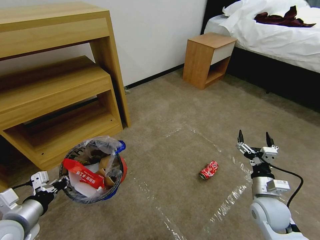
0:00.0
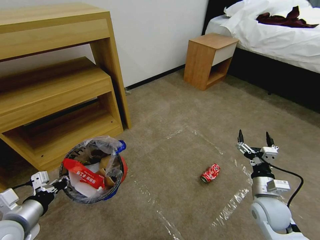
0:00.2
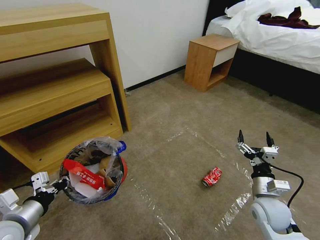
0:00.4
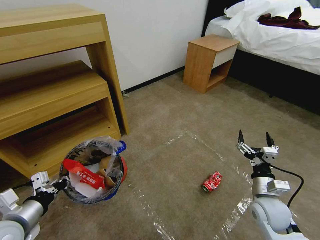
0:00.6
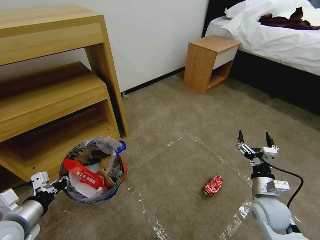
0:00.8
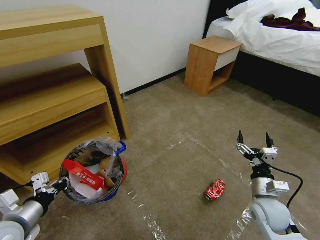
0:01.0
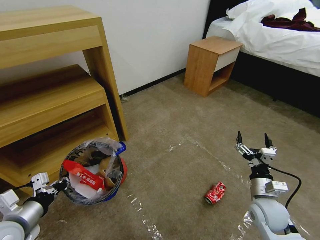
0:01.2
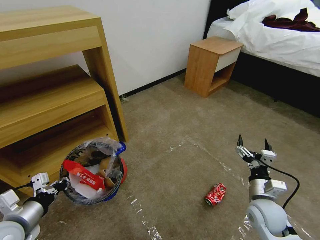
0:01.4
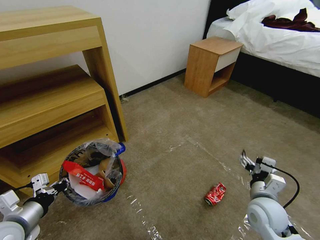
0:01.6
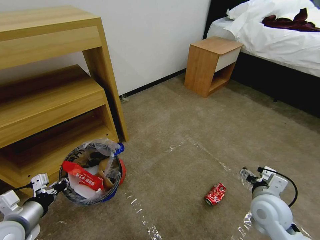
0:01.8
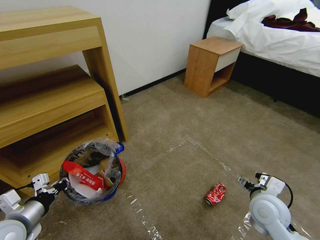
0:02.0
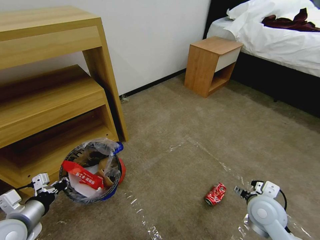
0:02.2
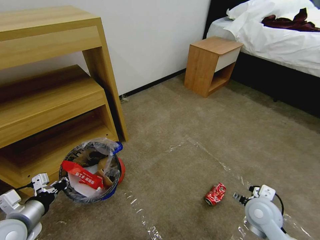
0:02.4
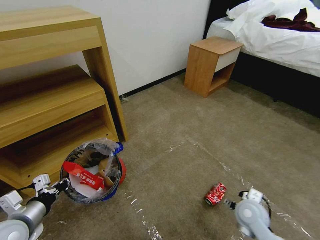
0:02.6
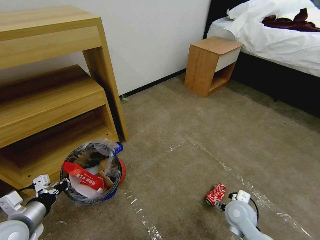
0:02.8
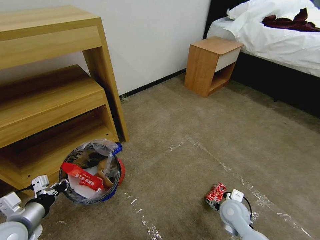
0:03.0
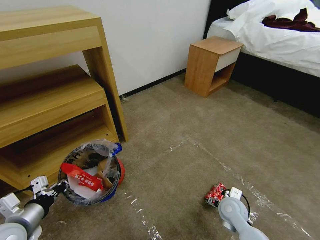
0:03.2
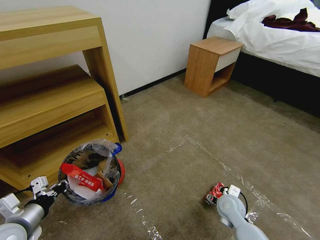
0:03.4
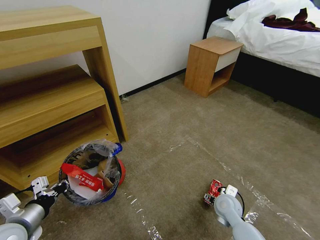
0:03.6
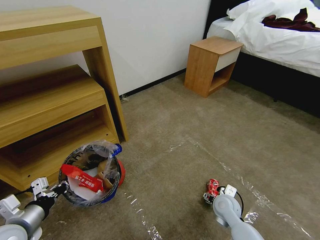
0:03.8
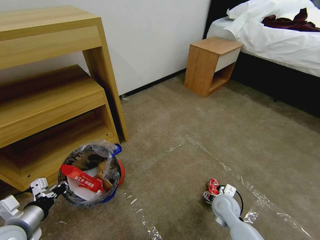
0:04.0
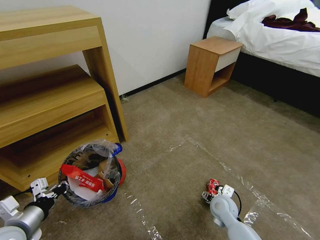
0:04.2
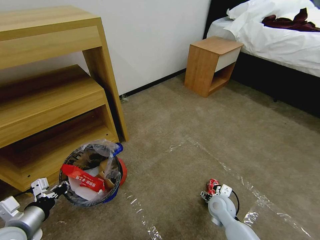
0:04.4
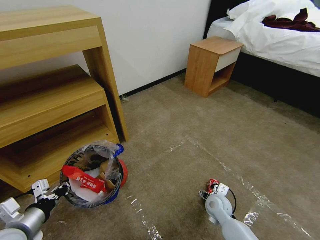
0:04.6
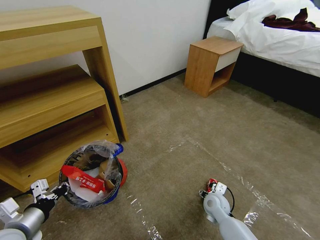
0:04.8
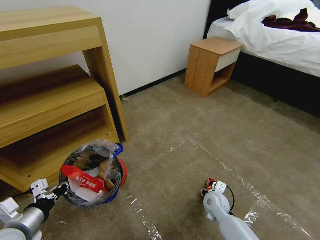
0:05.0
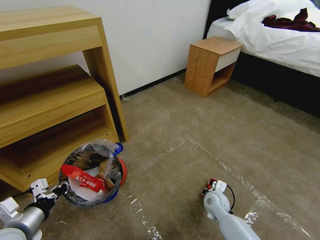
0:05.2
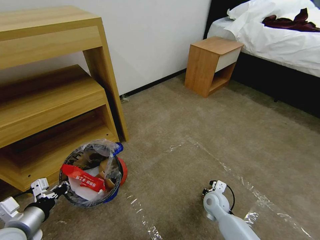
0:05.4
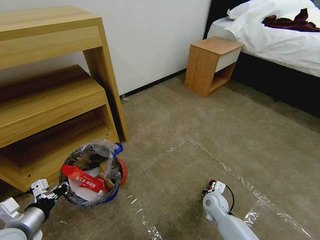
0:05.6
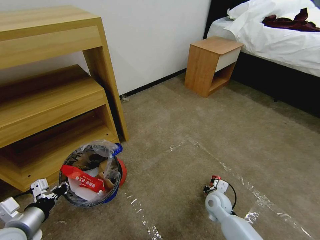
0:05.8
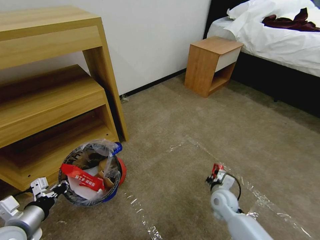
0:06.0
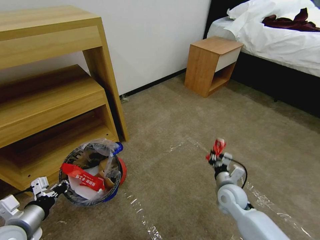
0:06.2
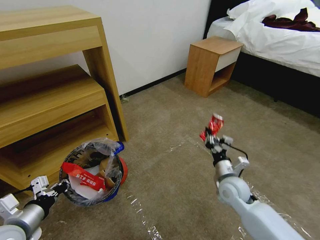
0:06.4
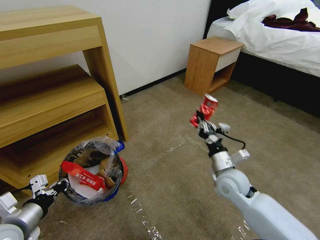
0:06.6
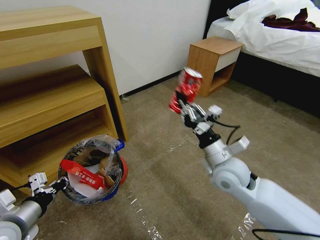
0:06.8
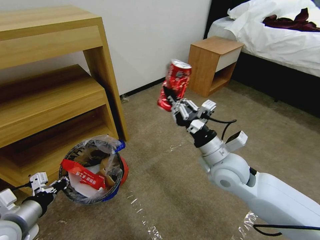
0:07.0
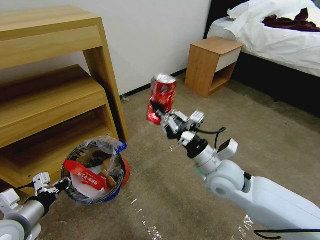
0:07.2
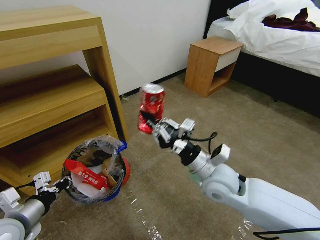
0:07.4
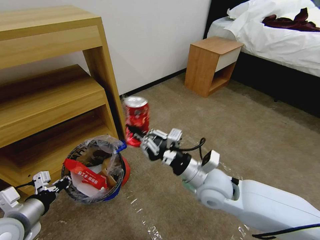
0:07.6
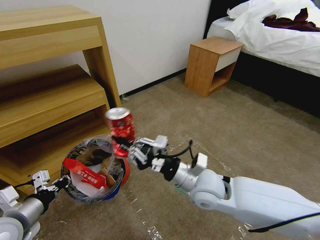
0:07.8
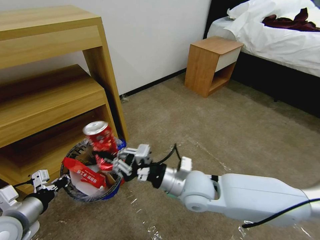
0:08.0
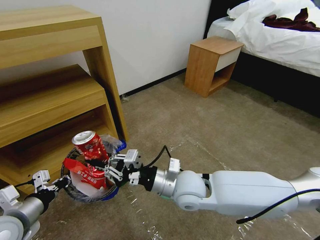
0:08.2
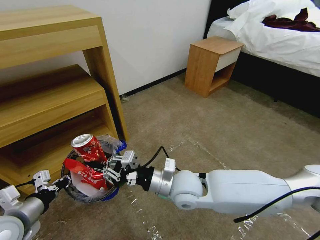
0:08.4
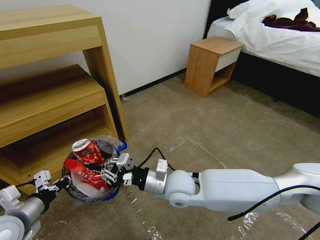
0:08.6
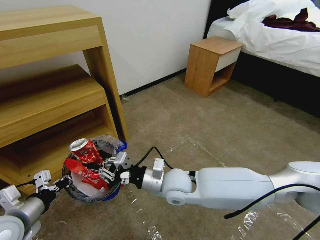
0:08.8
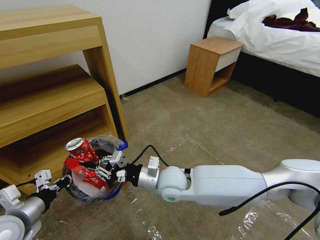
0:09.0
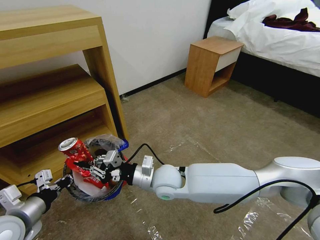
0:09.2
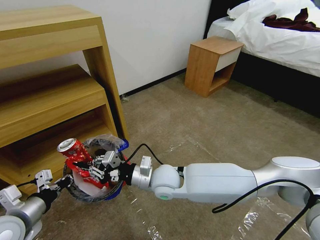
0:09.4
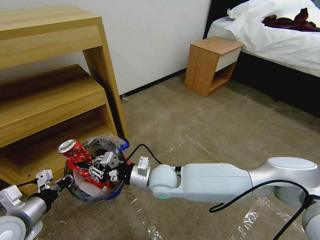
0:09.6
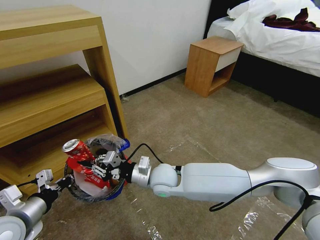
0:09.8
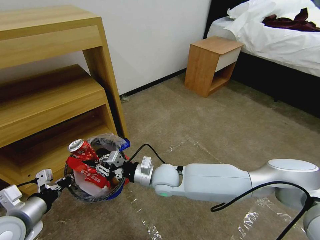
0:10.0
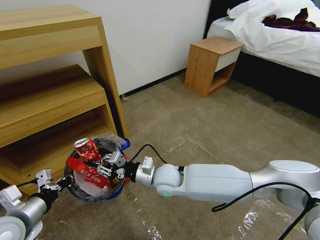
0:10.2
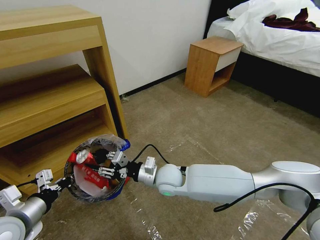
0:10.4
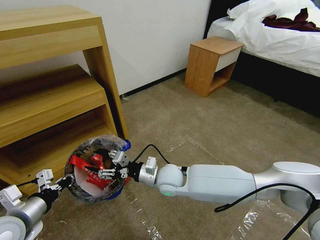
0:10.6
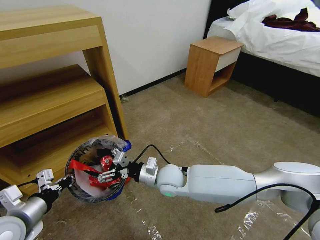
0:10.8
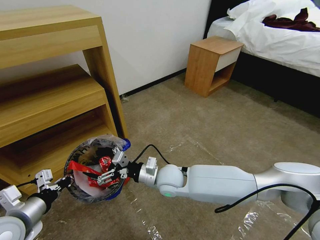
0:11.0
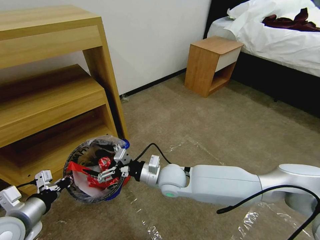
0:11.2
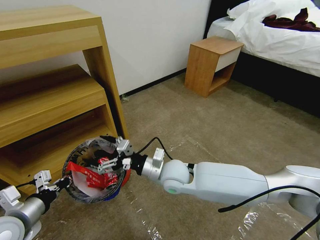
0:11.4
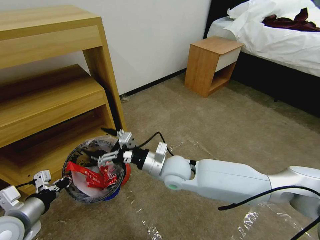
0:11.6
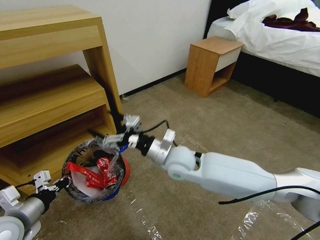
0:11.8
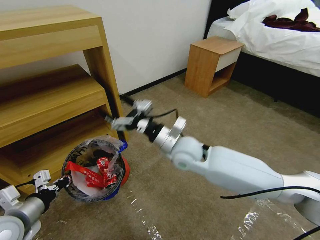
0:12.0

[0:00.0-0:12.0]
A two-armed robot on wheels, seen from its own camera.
Task of the whole recording: Pick up the trash bin and place the garbage on the floor into it.
0:01.6 to 0:03.0: The right gripper heads downward and to the left, covering approximately 10 cm.
0:03.0 to 0:04.4: The right gripper ends up some 5 cm from where it was.
0:04.4 to 0:06.0: The right gripper closes its fingers.
0:06.0 to 0:07.6: The right gripper moves upward and to the left, some 25 cm.
0:07.6 to 0:09.0: The right gripper moves to the left, about 10 cm.
0:09.0 to 0:10.4: The right gripper opens.
0:10.4 to 0:12.0: The right gripper shifts some 15 cm upward and to the right, and opens up.

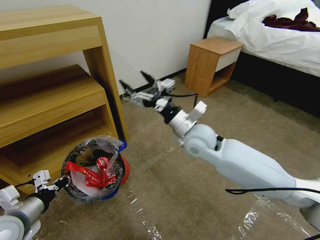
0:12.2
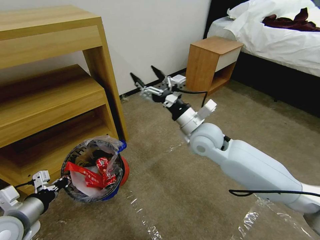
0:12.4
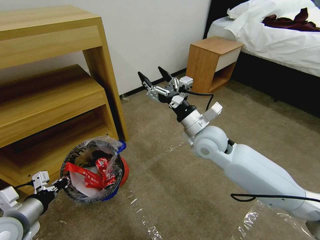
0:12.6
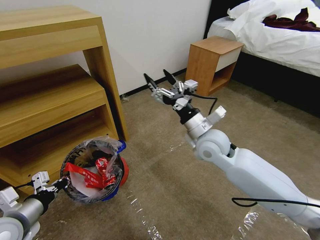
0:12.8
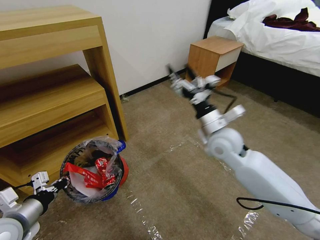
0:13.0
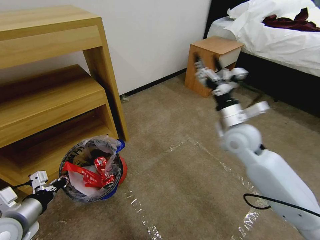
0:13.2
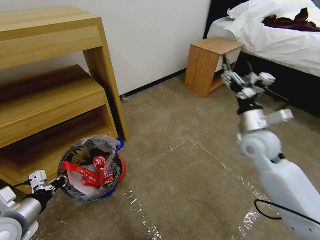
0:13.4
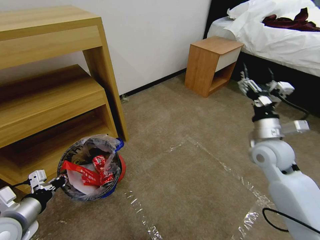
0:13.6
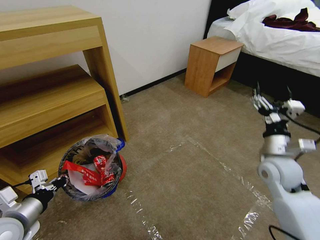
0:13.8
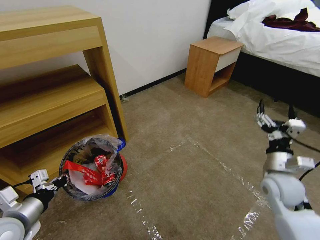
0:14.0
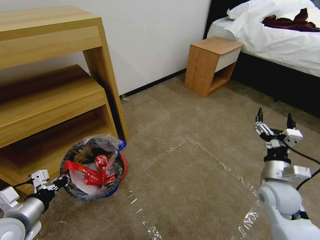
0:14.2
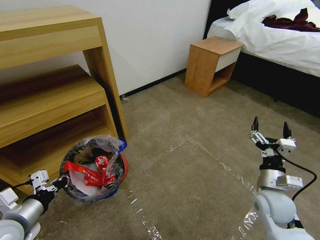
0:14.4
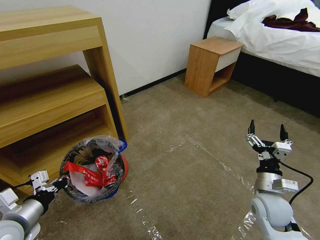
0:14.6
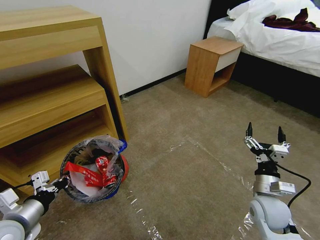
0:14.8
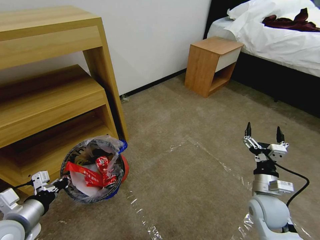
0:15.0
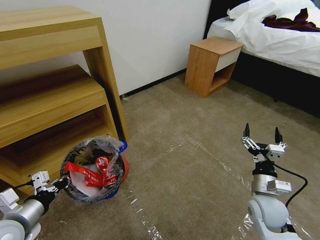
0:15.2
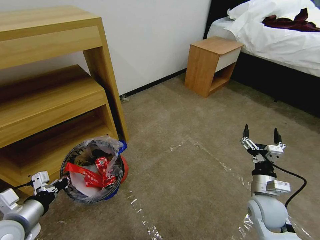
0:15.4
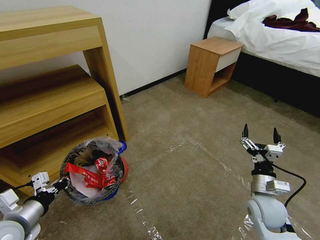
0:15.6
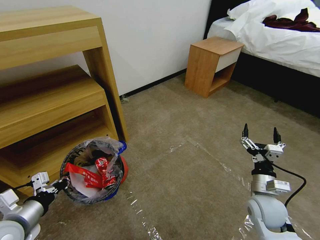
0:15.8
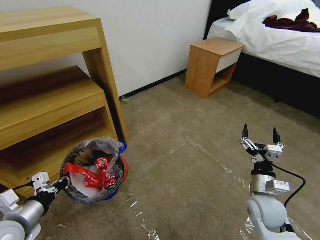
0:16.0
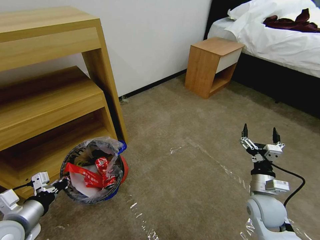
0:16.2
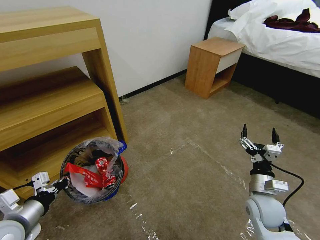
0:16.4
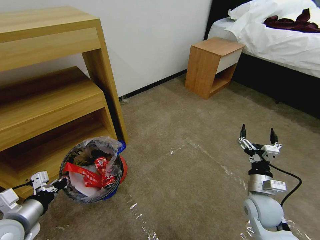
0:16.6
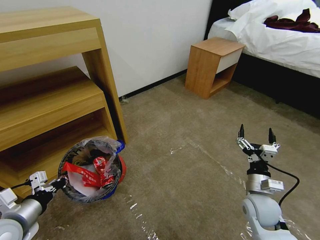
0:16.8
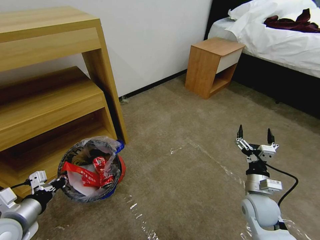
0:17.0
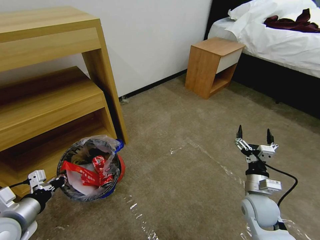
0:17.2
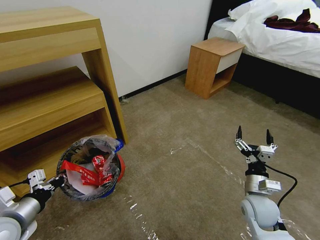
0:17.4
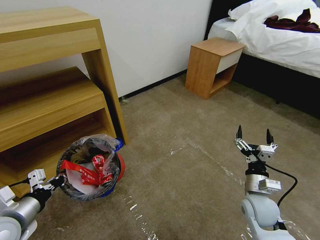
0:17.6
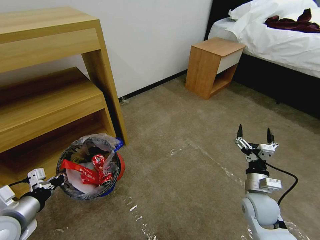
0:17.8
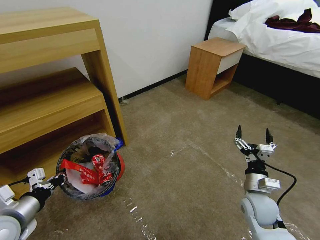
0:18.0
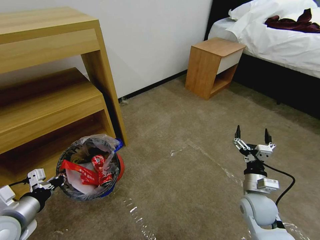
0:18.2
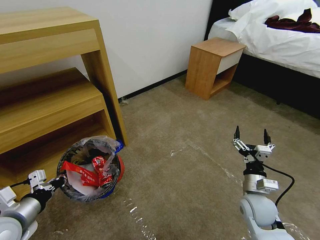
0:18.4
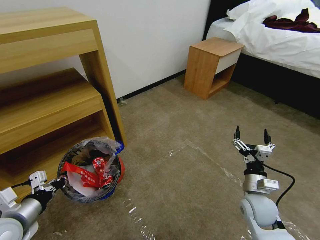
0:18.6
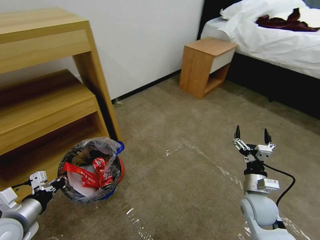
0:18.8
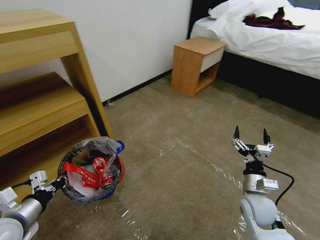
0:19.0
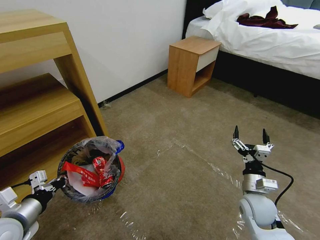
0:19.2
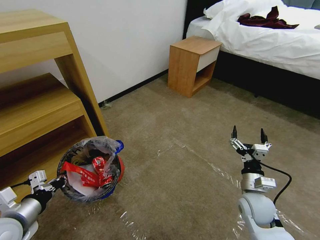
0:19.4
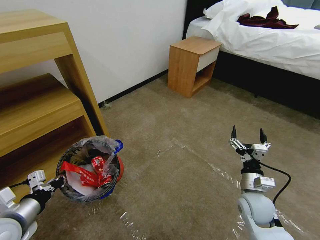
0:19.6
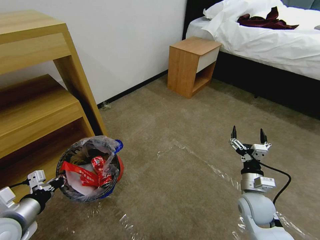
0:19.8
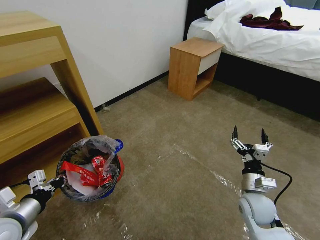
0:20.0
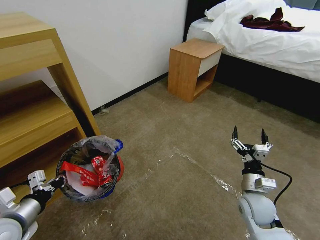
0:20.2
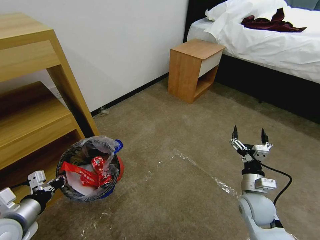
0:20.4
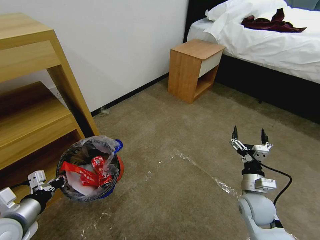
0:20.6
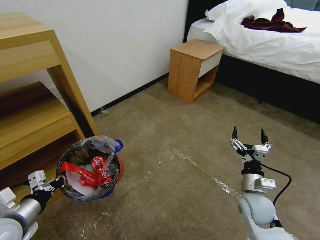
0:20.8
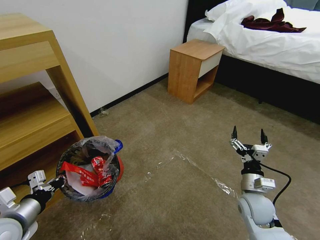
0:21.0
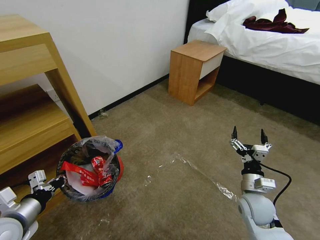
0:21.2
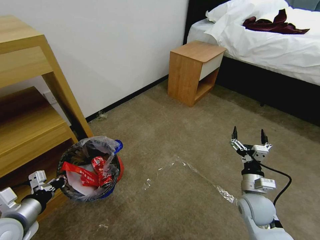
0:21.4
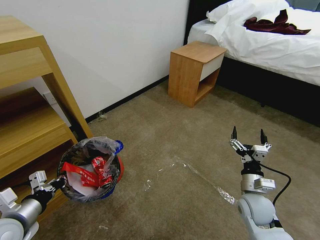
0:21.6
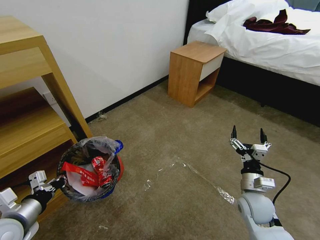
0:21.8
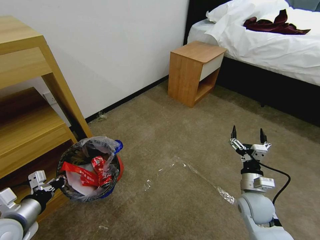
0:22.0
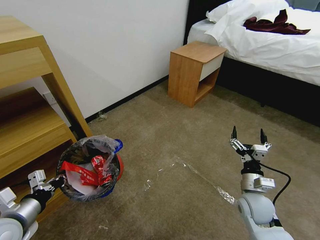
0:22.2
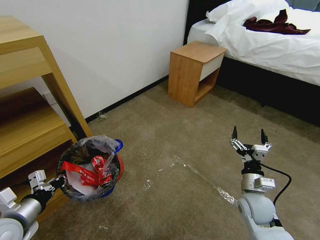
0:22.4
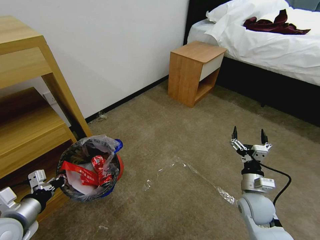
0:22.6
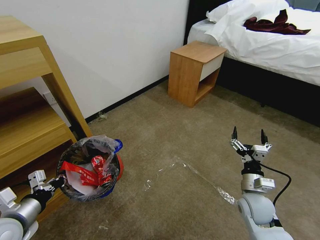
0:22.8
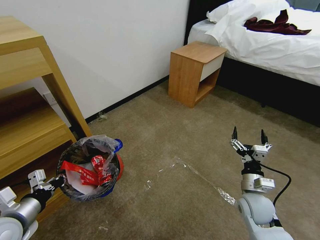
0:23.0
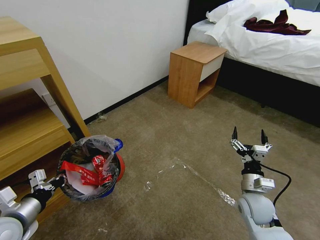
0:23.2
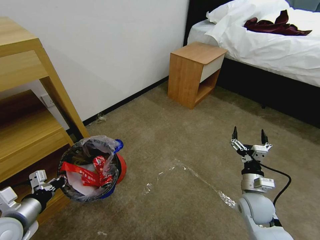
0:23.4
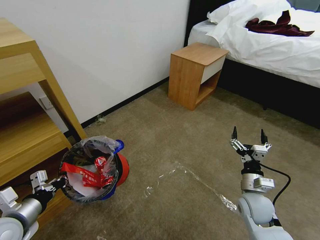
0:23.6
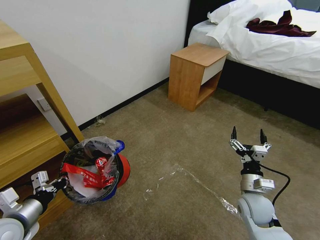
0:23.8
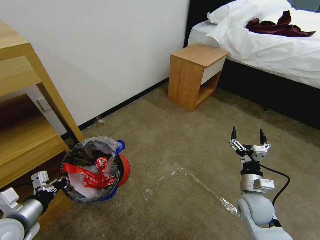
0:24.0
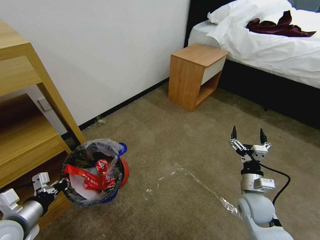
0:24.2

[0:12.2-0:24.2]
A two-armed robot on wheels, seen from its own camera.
Task of the whole recording: Pick up the trash bin and place the garbage on the floor into it.
0:12.2 to 0:13.8: The right gripper goes about 25 cm to the right.
0:13.8 to 0:15.2: The right gripper goes some 15 cm downward and backward.
0:15.2 to 0:16.6: Neither gripper changes place.
0:16.6 to 0:18.2: Neither gripper changes place.
0:19.8 to 0:24.2: Both grippers stay about where they are.
